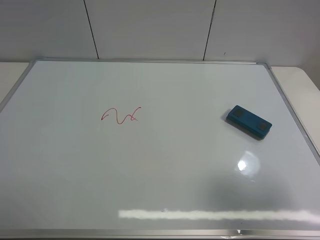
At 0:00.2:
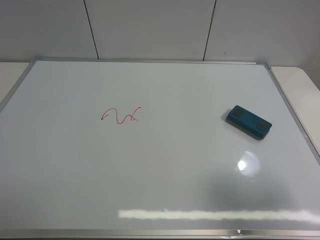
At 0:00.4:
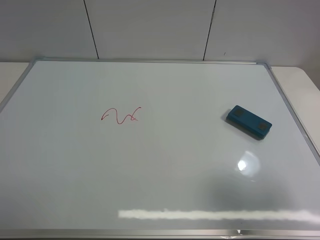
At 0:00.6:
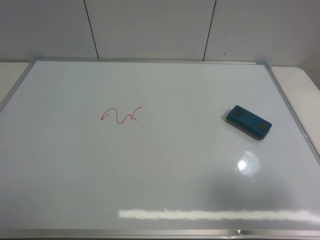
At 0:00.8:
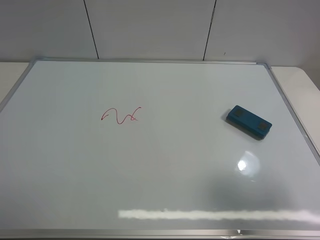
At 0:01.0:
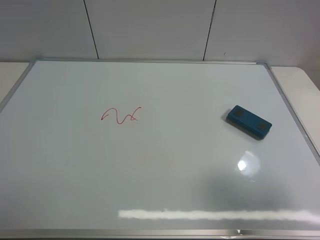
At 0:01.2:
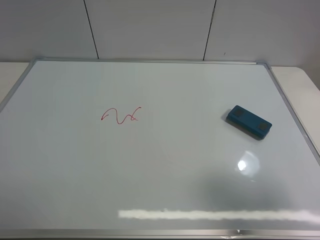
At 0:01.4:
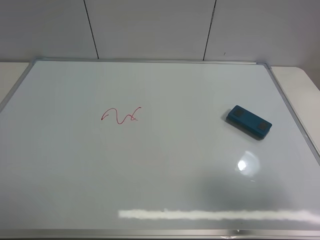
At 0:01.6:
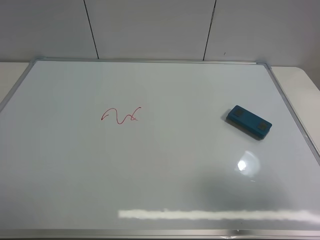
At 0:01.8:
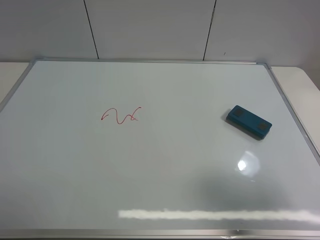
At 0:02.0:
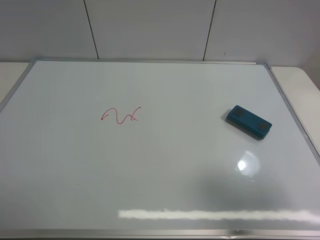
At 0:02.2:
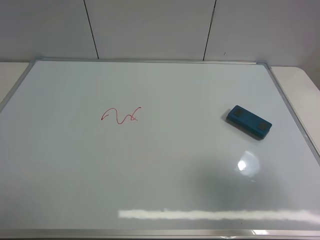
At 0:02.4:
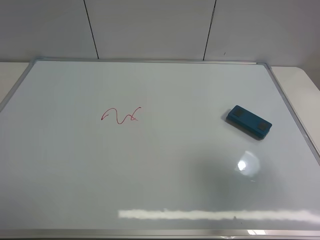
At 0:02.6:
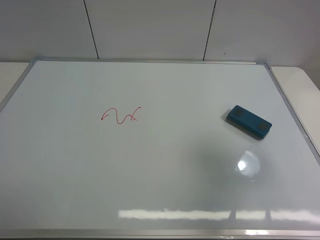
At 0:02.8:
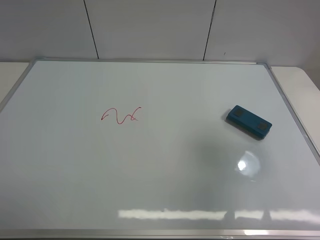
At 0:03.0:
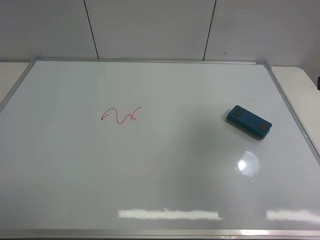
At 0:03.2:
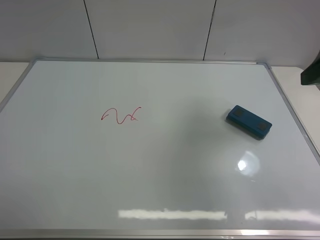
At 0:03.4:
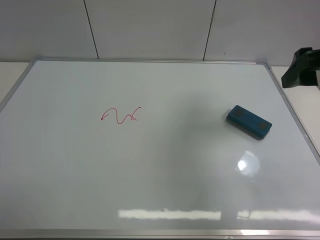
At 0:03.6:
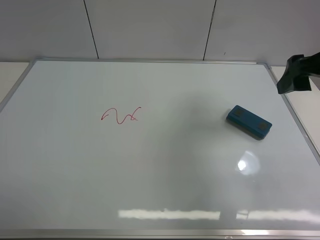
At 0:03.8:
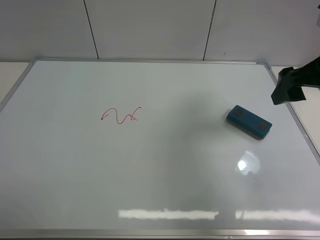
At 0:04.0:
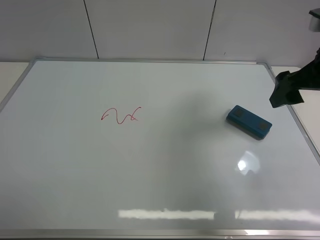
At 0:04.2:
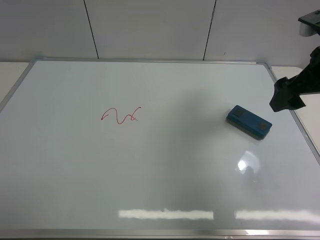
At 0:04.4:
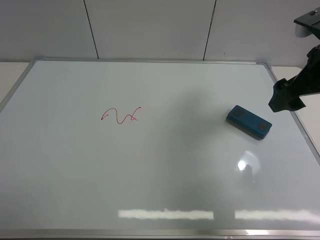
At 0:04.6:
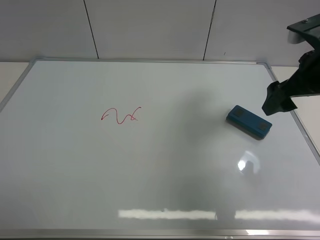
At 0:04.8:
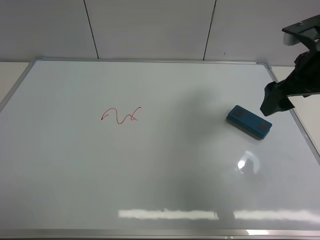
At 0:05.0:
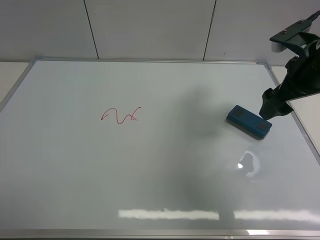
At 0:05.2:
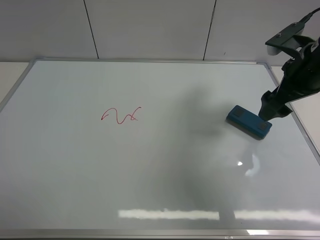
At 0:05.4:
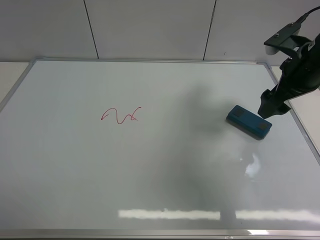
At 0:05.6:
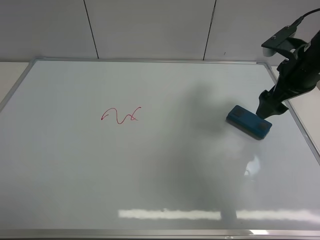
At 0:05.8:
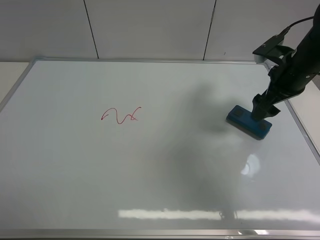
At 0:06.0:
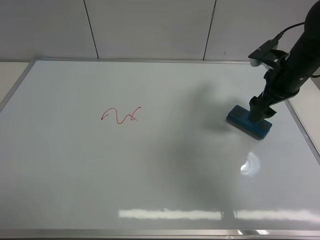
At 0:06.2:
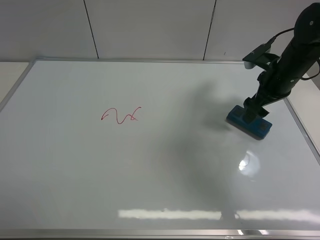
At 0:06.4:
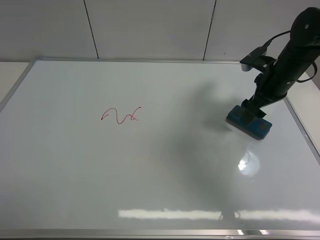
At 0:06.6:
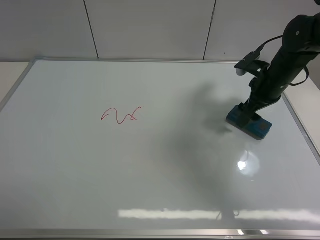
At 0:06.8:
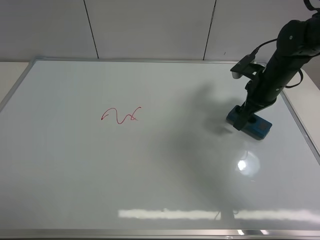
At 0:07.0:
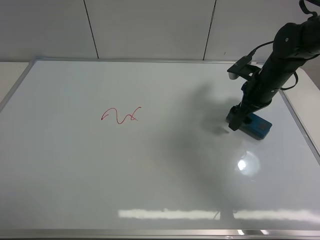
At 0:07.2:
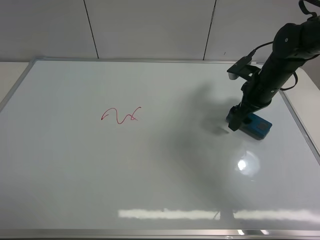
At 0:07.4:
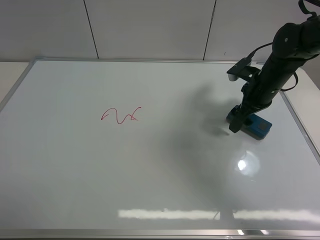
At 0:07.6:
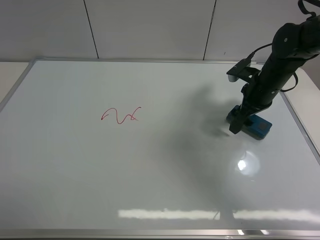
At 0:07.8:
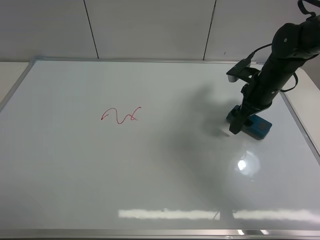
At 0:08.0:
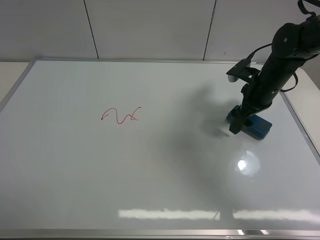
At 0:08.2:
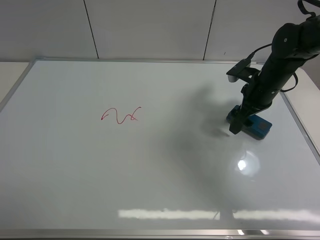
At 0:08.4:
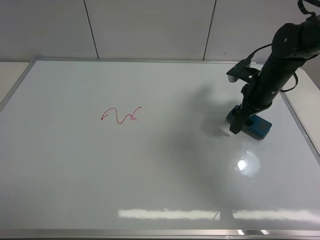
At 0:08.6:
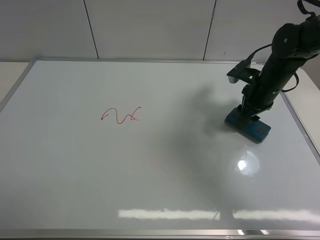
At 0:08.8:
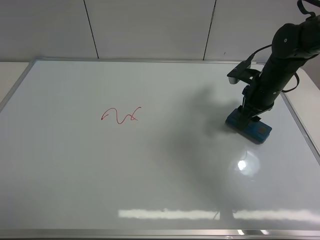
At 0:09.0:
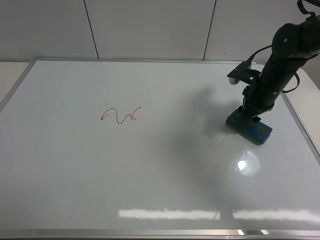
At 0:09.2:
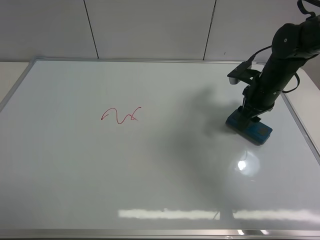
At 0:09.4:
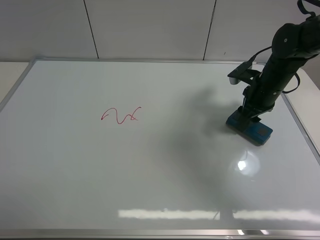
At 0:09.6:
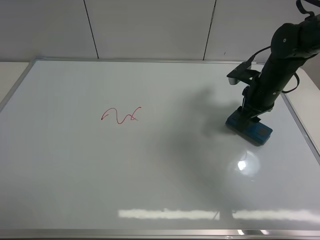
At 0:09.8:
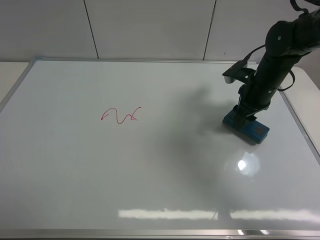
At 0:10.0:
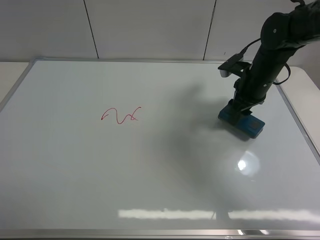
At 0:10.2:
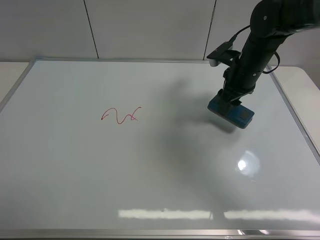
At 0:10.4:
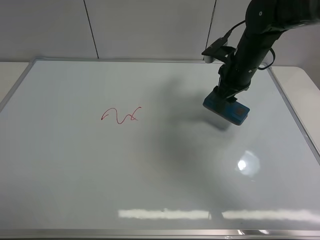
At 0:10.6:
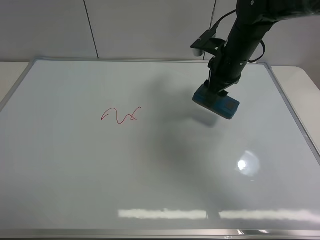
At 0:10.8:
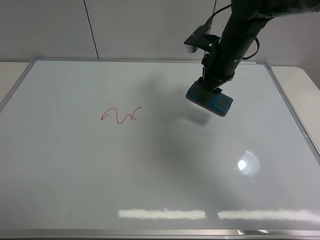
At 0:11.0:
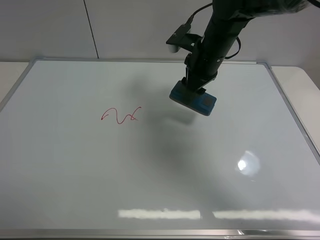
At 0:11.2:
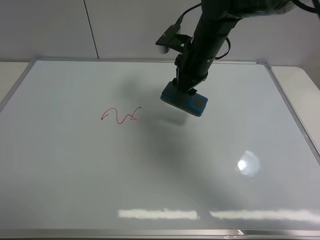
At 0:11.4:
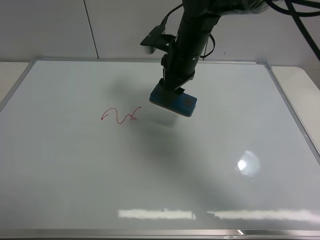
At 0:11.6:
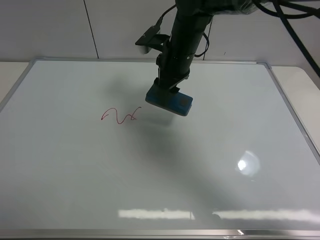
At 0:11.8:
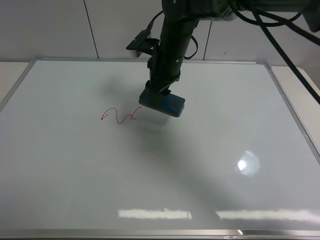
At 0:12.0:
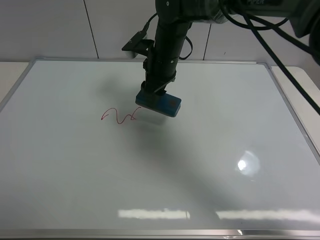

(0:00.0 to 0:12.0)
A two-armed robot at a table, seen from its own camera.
Task of the whole recording: use the right gripper to pick up the board eraser, wipe the notes on the whiteboard clean, and then put them back in place.
Step, 0:00.0 - 0:09.8: Pick up the board eraser with right gripper.
0:01.6 - 0:03.0: The right gripper is displaced forward by approximately 15 cm.
0:03.0 - 0:04.4: The right gripper goes roughly 10 cm forward.
0:04.4 - 0:06.0: The right gripper heads forward and downward, covering some 15 cm.
0:06.0 - 0:07.6: The right gripper changes place by approximately 5 cm.
0:07.6 - 0:09.0: The right gripper closes.
0:09.0 - 0:10.4: The right gripper goes about 5 cm to the left.
0:10.4 - 0:12.0: The right gripper is displaced to the left by approximately 15 cm.

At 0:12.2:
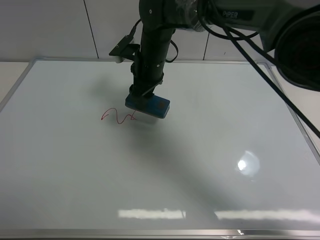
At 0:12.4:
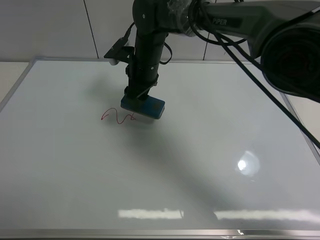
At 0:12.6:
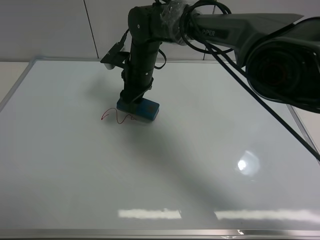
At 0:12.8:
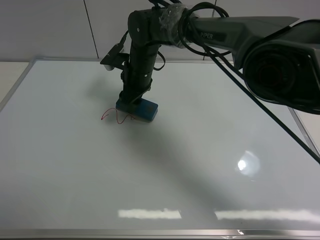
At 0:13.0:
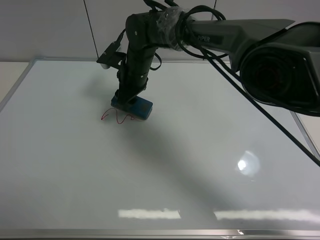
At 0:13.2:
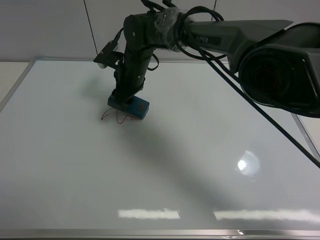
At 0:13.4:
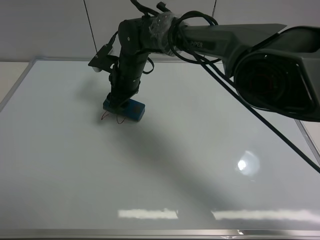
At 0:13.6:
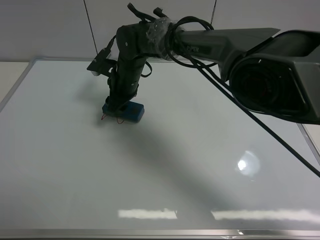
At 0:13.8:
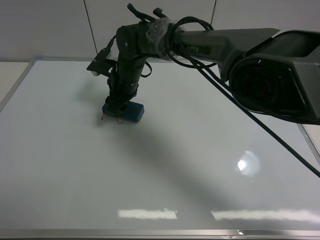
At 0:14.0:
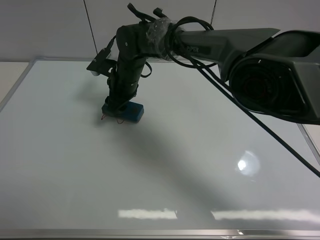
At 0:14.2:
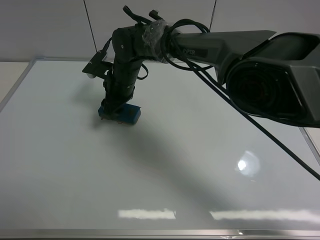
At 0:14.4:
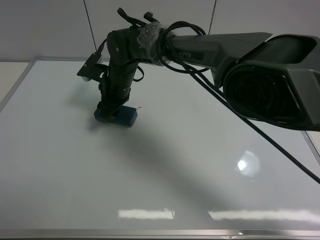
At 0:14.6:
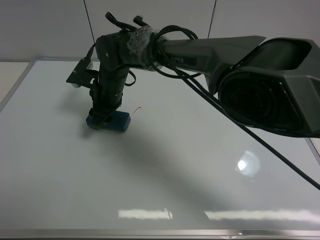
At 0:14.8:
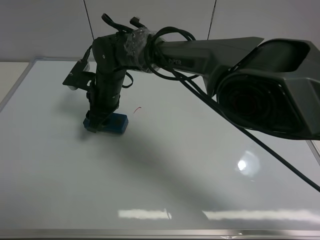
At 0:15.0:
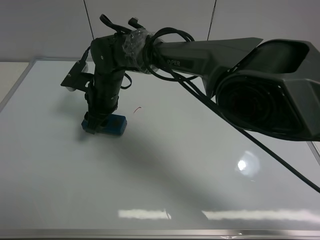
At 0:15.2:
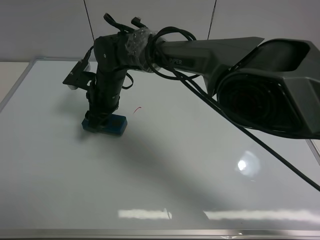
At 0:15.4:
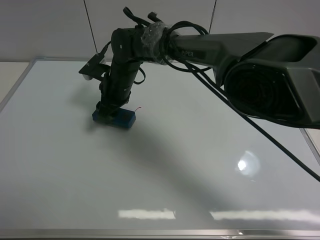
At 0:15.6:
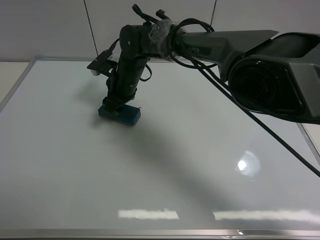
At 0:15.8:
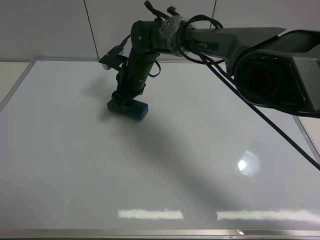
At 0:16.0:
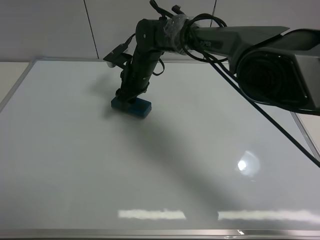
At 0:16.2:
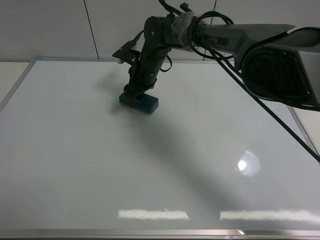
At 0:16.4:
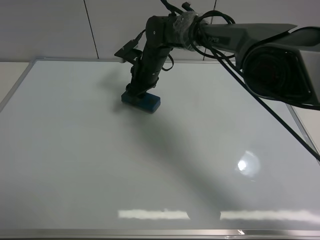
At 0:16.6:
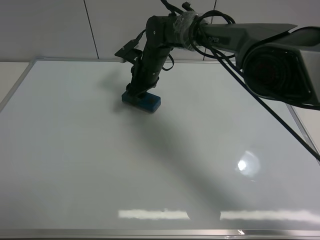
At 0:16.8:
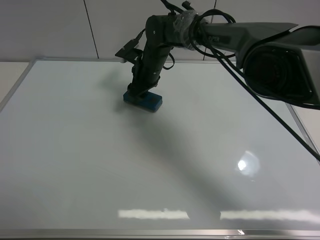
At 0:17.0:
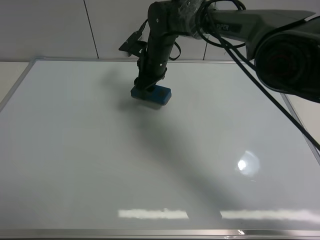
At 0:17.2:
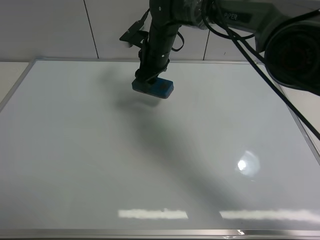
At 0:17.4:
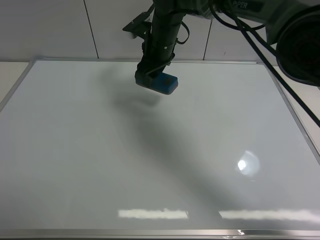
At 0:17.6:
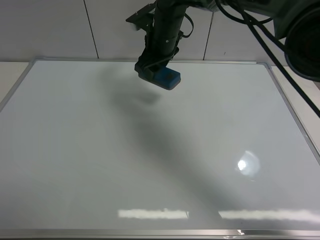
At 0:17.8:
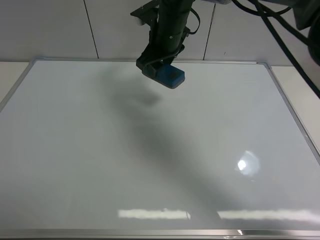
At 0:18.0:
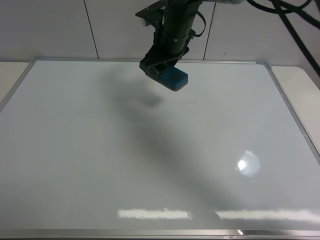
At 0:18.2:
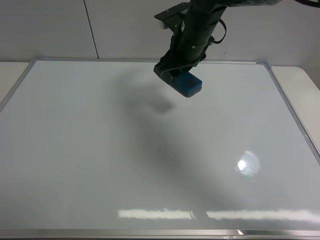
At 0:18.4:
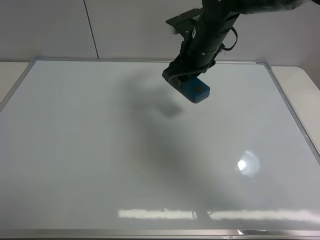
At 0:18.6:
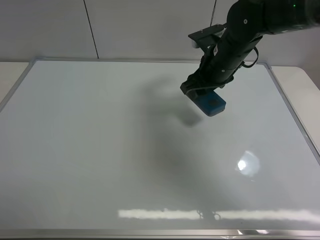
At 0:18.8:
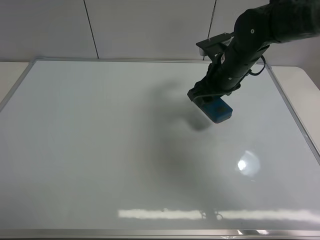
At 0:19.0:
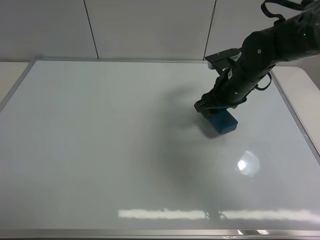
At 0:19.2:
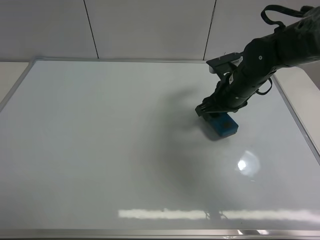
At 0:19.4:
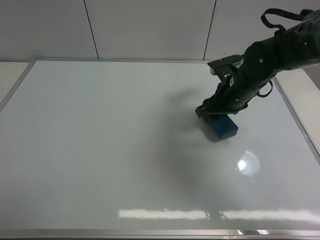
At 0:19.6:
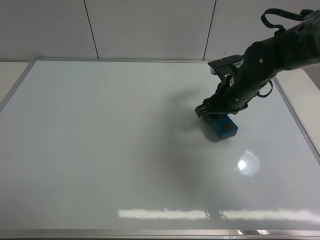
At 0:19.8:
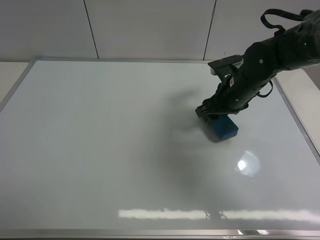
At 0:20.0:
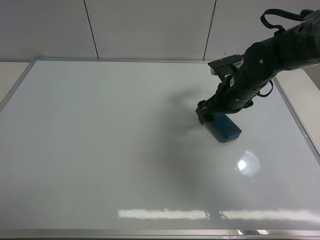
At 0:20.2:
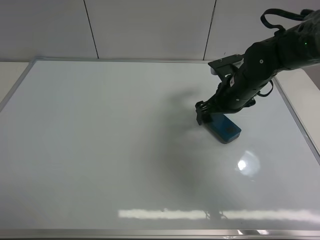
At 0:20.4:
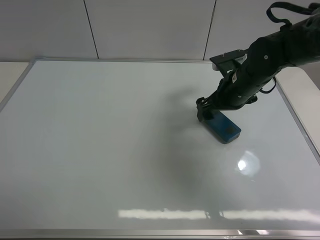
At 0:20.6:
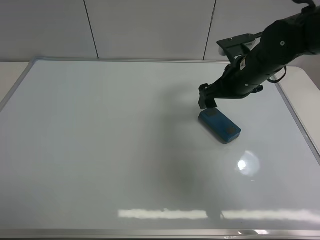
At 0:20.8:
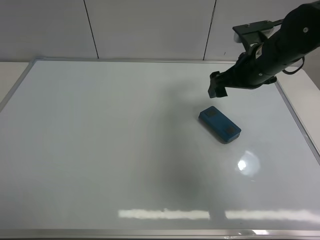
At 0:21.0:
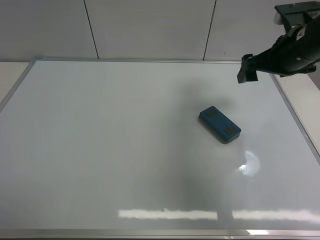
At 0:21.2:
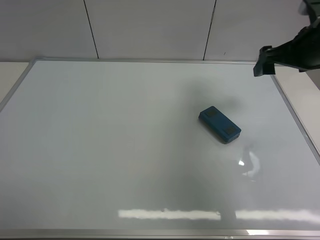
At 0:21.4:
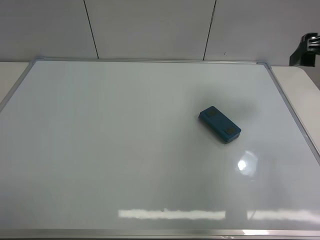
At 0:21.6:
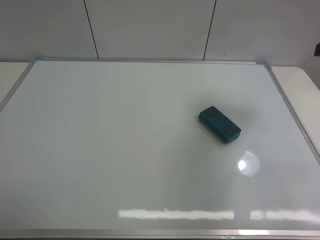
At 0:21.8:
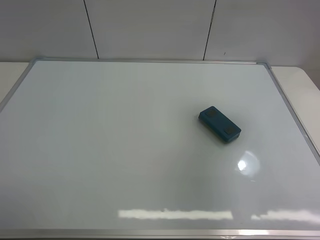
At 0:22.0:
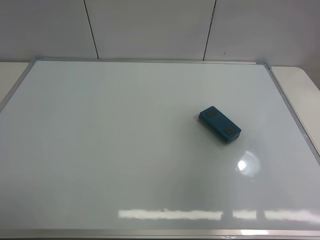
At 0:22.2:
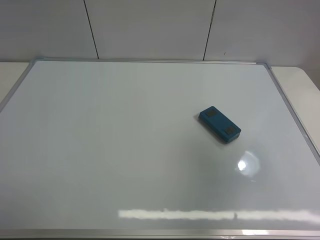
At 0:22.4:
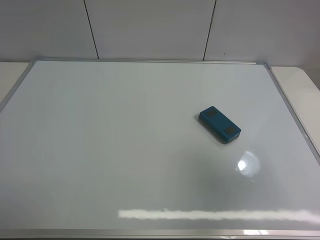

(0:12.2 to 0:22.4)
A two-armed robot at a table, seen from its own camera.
Task of the whole recording: use the right gripper to pick up the board eraser, wipe the notes on the whiteboard clean, and then put them back in place.
Step, 0:12.2 - 0:16.6: Wipe off the writing on the board with right gripper.
Step, 0:16.8 - 0:20.0: Place the board eraser on the right side of board with right gripper.
0:12.2 - 0:13.6: The right gripper goes about 5 cm to the left.
0:15.2 - 0:16.6: The right gripper is displaced to the right and forward by approximately 10 cm.
0:16.6 - 0:18.0: The right gripper moves upward and to the right, roughly 10 cm.
0:18.0 - 0:19.4: The right gripper shifts roughly 15 cm to the right, downward and backward.
0:19.4 - 0:21.0: The right gripper shifts roughly 15 cm upward and to the right, and opens up.
0:21.0 - 0:22.4: The right gripper travels backward and upward by roughly 30 cm.
